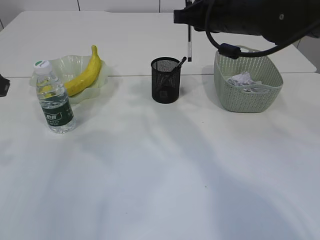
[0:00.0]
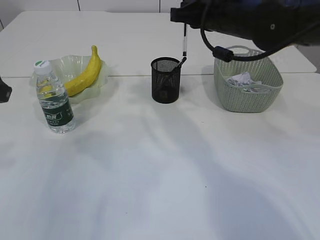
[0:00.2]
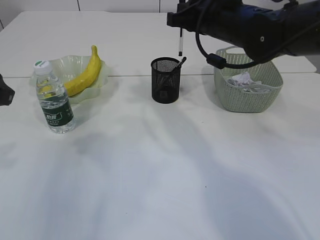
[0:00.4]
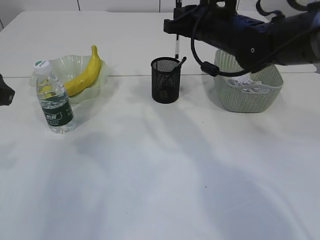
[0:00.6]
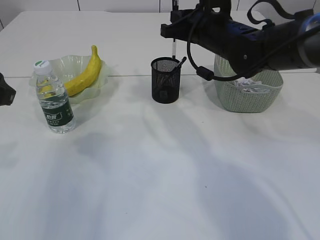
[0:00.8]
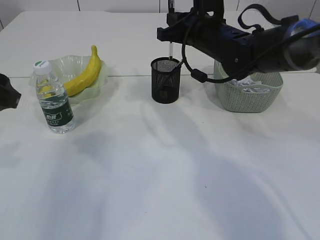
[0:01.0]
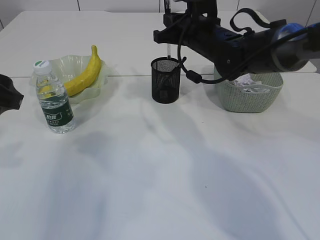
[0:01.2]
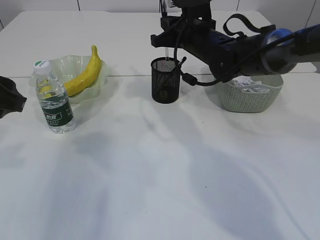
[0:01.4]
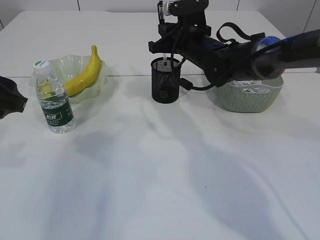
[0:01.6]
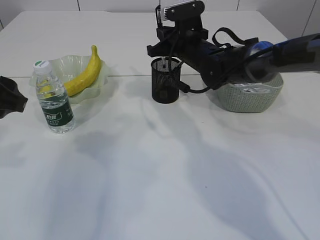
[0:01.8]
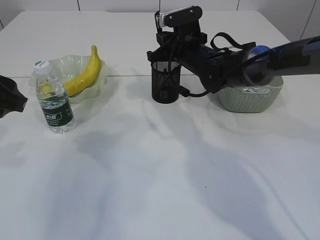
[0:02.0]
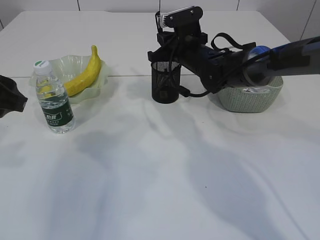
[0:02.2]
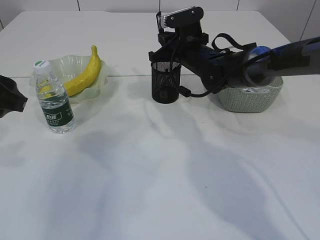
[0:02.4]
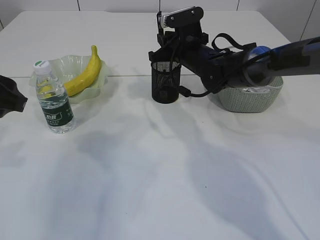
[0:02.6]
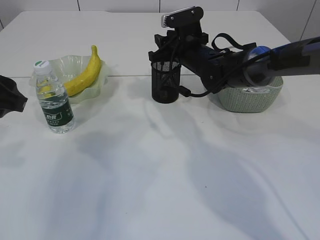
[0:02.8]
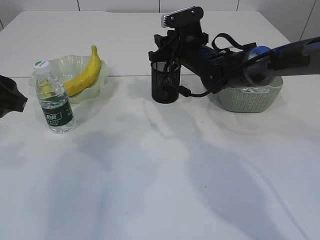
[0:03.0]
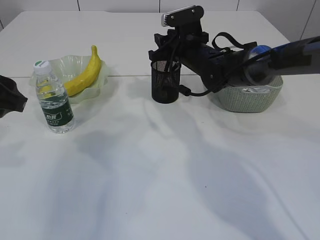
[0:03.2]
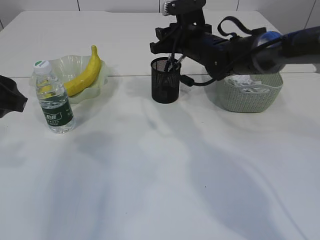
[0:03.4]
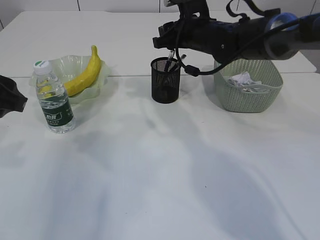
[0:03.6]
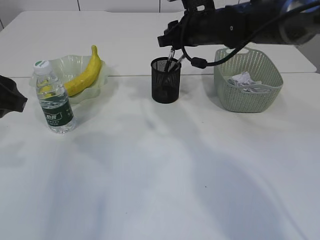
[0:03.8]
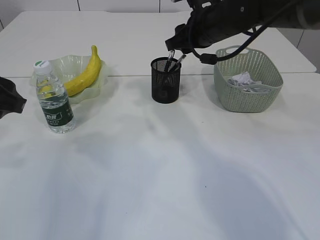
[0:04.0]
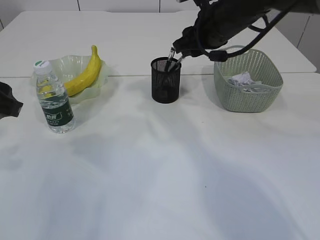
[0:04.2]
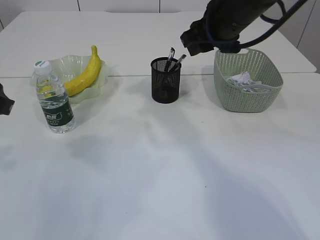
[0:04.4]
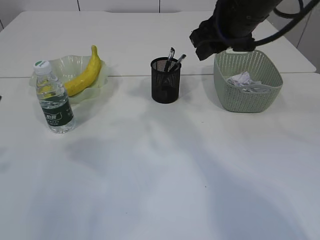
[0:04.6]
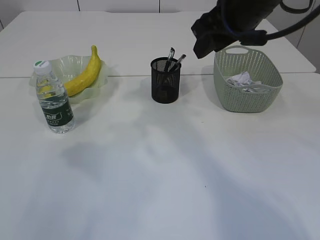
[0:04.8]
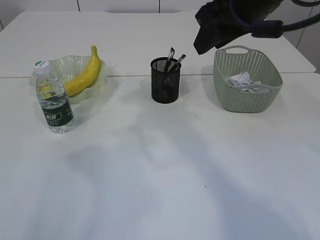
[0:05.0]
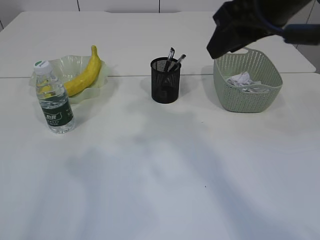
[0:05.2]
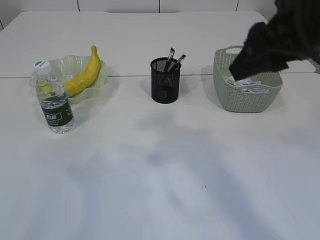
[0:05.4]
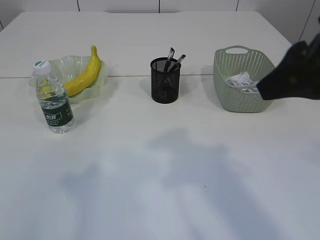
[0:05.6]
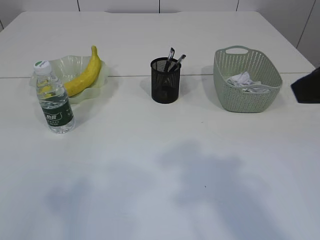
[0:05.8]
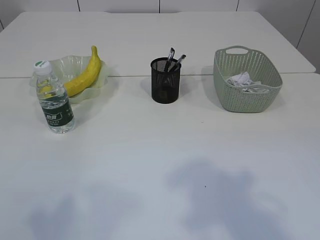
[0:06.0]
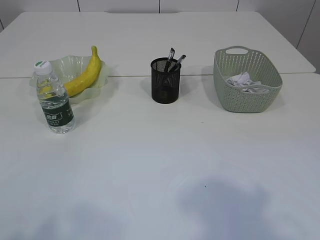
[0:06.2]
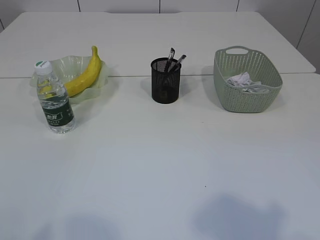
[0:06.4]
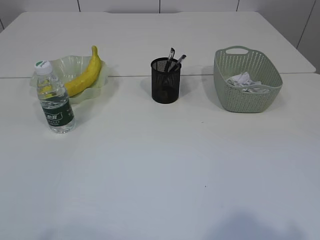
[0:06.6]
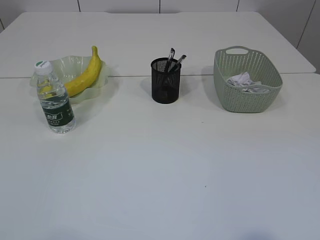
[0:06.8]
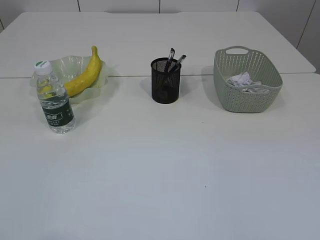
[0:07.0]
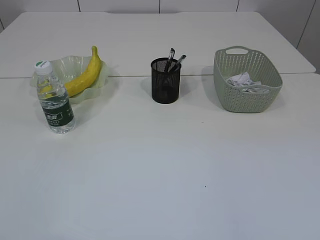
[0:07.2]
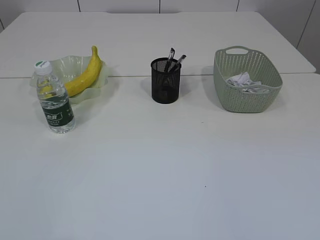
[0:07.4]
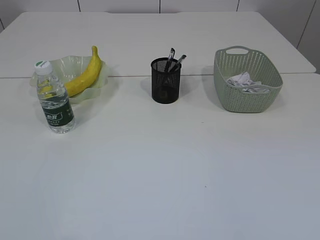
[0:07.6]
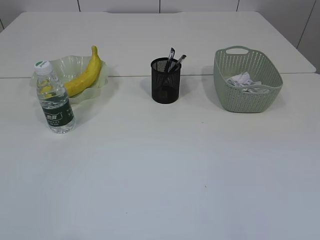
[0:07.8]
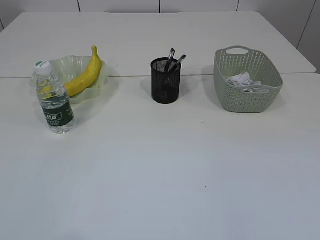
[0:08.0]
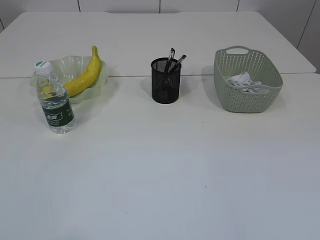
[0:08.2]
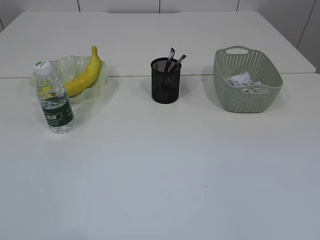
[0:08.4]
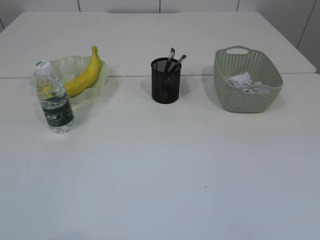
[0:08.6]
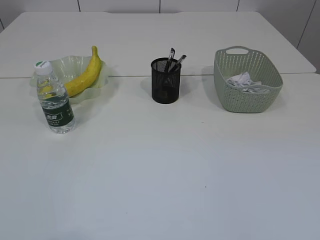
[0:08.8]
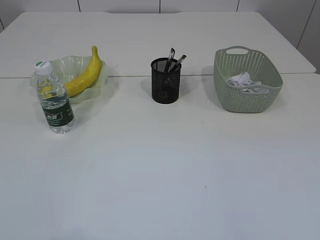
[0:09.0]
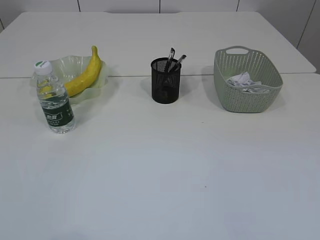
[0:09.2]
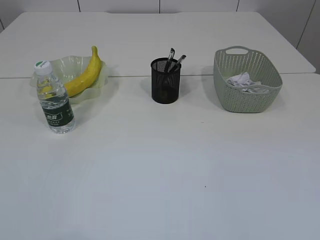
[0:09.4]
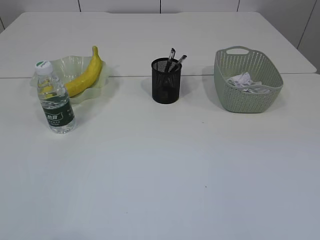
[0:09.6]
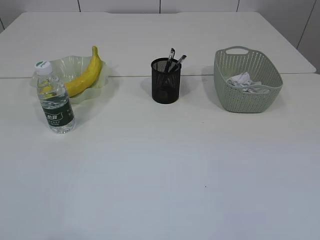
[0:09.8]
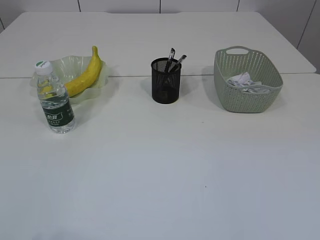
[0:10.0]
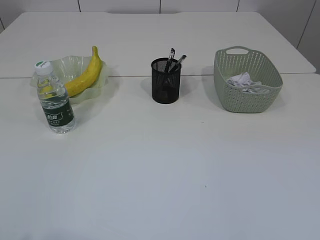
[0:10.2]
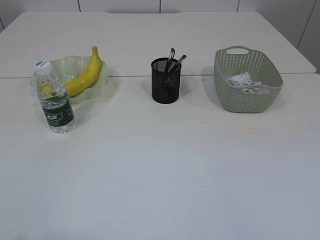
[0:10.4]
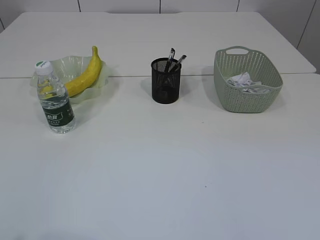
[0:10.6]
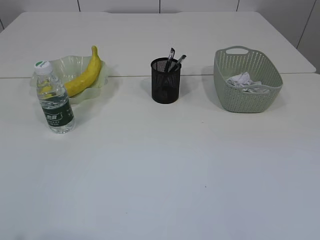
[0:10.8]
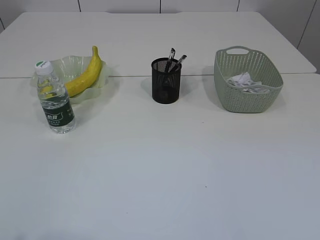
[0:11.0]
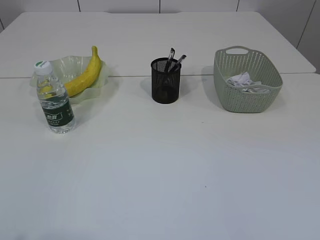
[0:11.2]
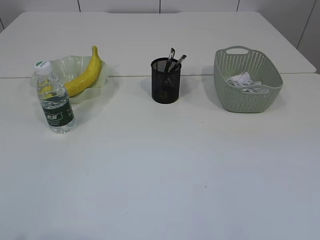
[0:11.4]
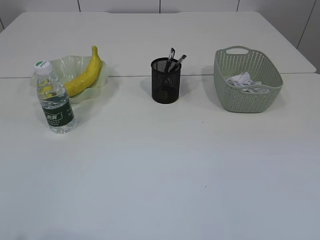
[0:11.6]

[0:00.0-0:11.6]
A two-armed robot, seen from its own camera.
Step, 0.0 to 3.6 s: Place the pen into the pen holder.
0.0 to 1.4 s: The right gripper travels downward and forward by roughly 10 cm.
1.4 to 2.8 s: The right gripper opens up.
2.8 to 4.4 s: The right gripper heads upward and backward, covering about 15 cm.
4.4 to 5.8 s: The right gripper shifts some 25 cm backward; the left gripper heads backward and upward, covering roughly 15 cm.
5.8 to 7.2 s: The right gripper moves backward, some 20 cm.

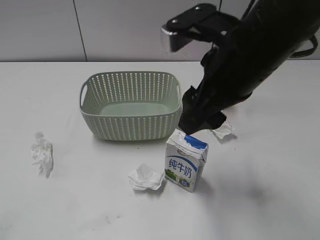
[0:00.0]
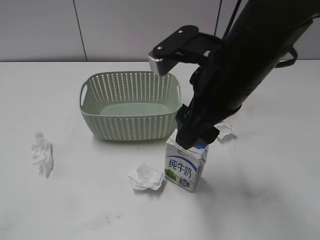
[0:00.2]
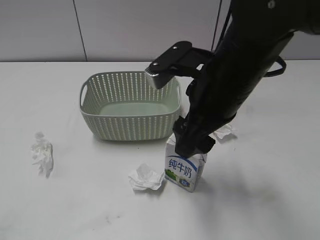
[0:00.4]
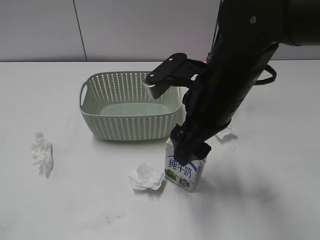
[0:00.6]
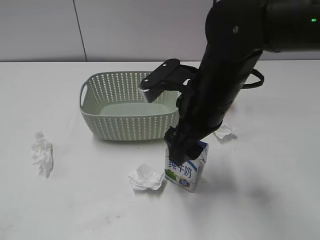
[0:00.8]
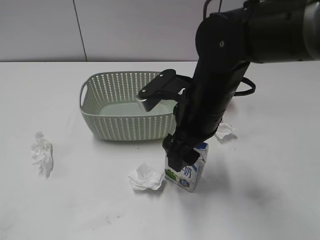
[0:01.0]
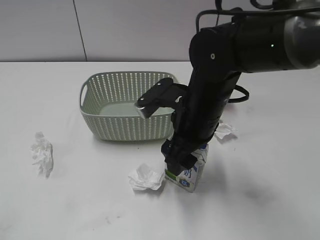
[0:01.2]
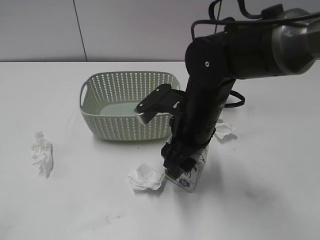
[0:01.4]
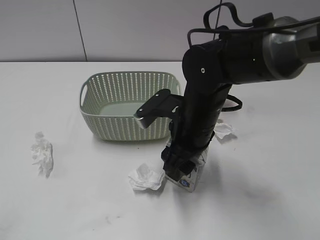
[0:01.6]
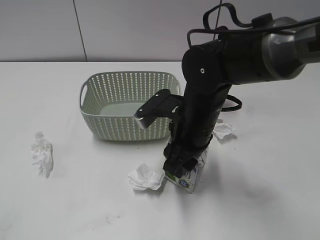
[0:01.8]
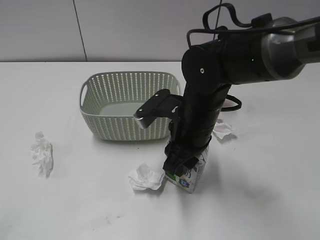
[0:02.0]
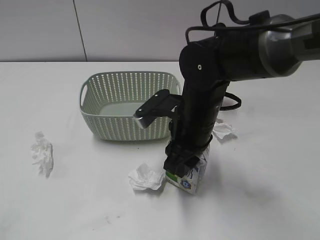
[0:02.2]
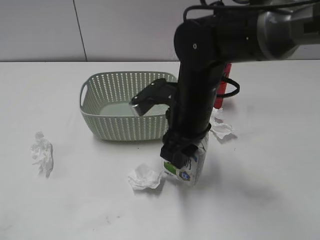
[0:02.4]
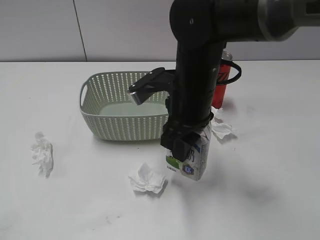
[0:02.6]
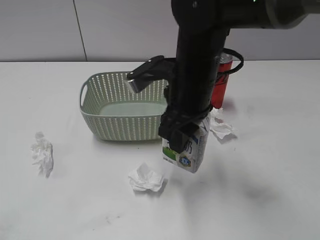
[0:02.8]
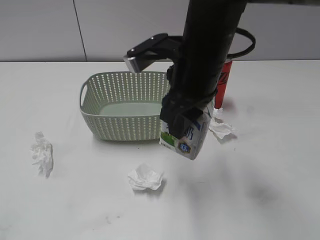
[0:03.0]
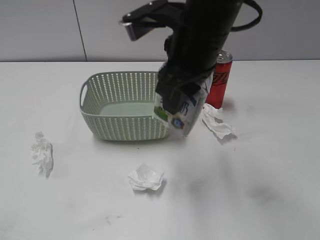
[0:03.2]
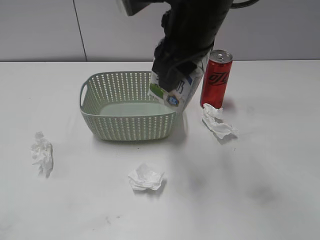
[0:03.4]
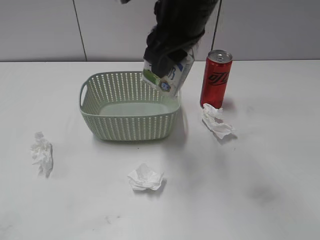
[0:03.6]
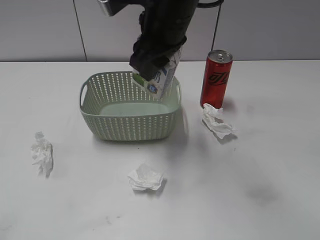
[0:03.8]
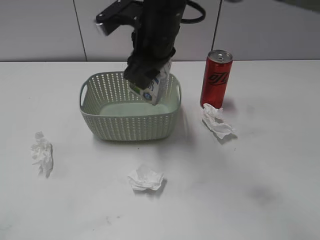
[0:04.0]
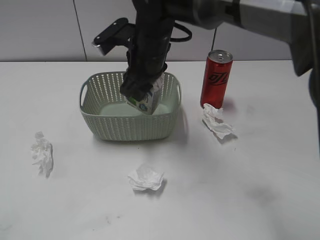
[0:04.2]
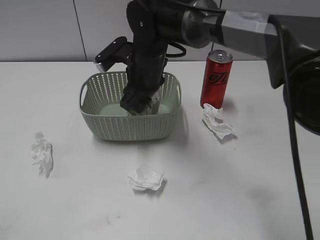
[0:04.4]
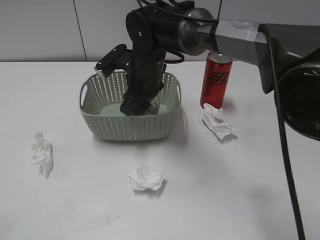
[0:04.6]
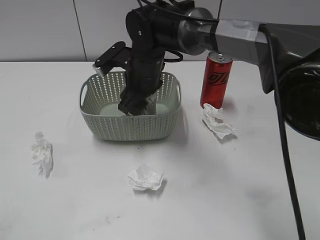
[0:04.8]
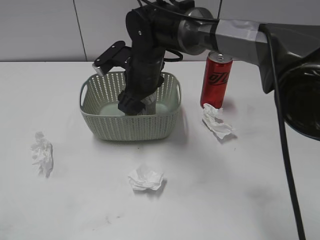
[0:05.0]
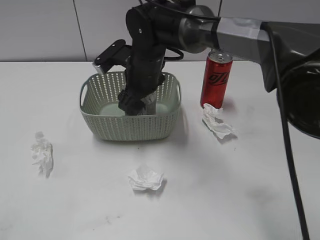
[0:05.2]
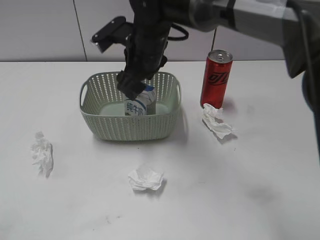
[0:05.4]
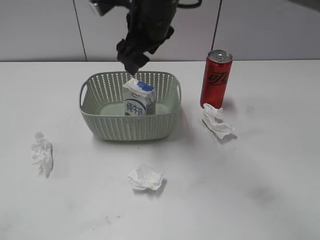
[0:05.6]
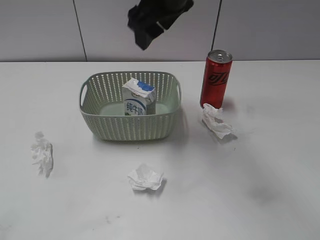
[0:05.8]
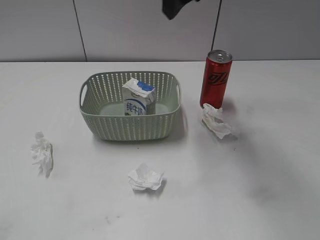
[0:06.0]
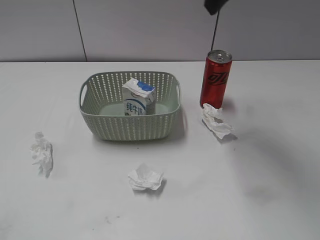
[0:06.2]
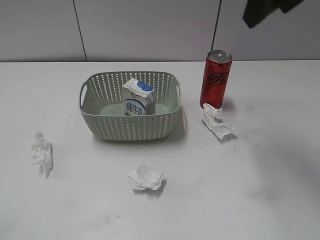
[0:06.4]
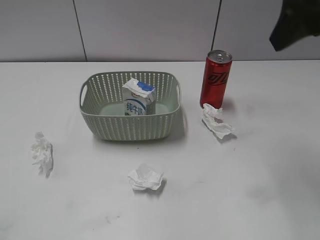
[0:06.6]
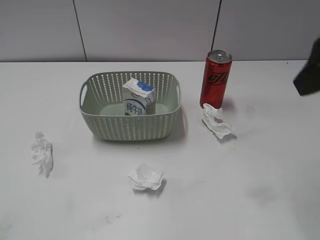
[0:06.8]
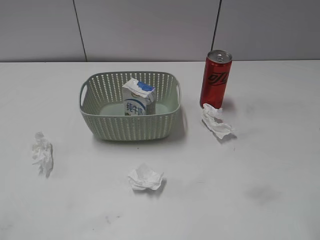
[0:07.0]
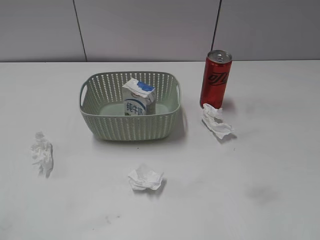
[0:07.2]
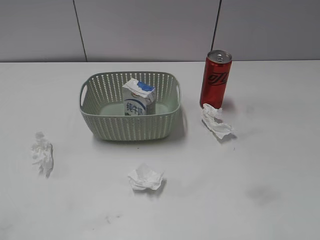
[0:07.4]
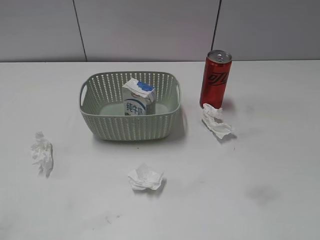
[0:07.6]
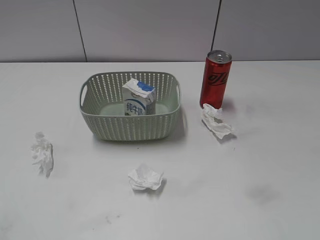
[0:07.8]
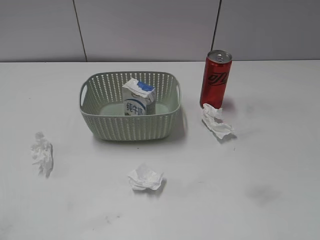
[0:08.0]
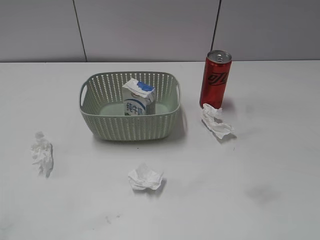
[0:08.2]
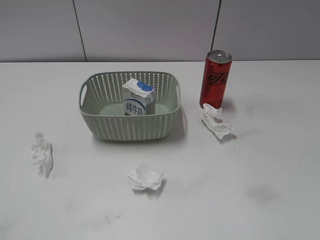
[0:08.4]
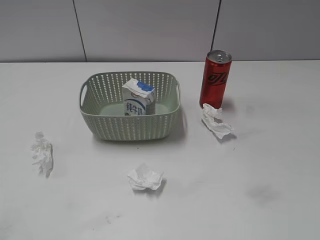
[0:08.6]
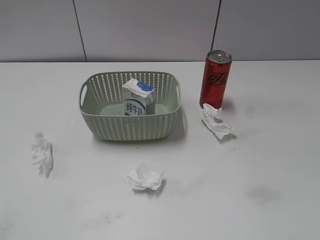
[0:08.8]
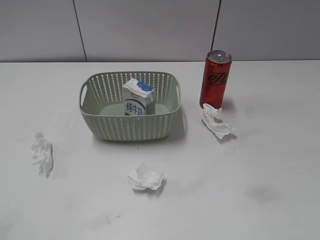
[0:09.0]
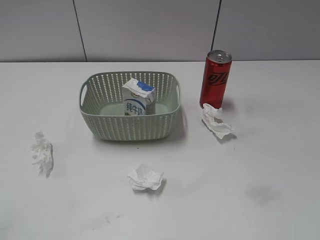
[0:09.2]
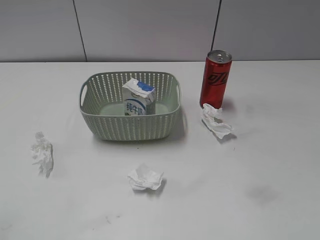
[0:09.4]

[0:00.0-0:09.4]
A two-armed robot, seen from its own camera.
Step, 0.0 to 1.8 s: Grasp the milk with right gripper.
Step, 2.0 to 5.6 s: Place the milk in the basket with right gripper.
0.0 to 1.6 s: The right gripper moves downward, some 15 cm.
1.6 to 3.2 s: The right gripper is displaced upward by roughly 15 cm.
3.2 to 4.8 s: The right gripper moves downward, forward and to the left, about 20 cm.
4.8 to 6.2 s: The right gripper travels upward and to the right by about 25 cm.
6.2 to 7.8 s: The right gripper is displaced backward, to the right and downward by roughly 35 cm.

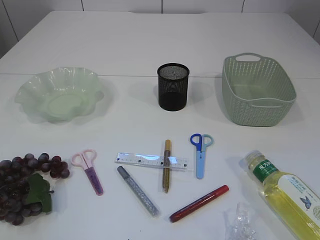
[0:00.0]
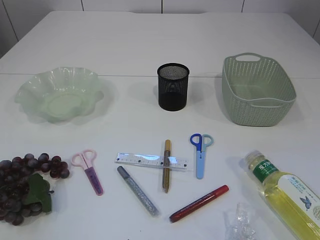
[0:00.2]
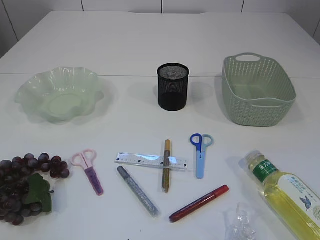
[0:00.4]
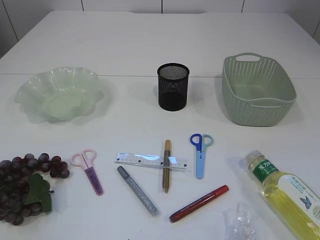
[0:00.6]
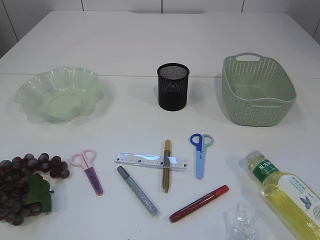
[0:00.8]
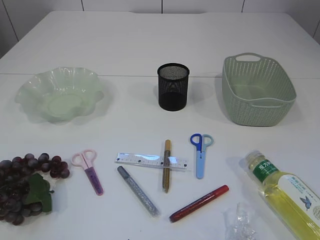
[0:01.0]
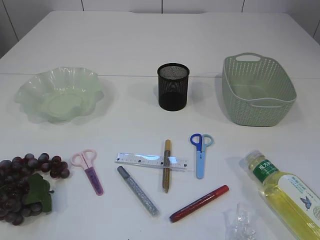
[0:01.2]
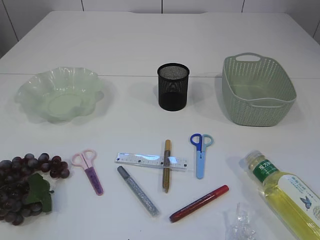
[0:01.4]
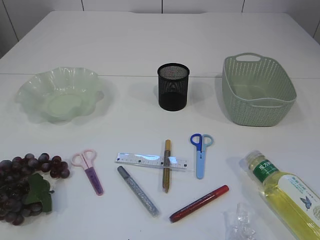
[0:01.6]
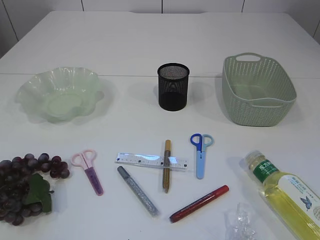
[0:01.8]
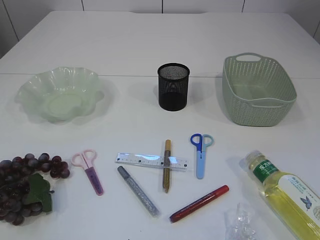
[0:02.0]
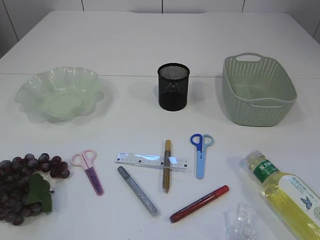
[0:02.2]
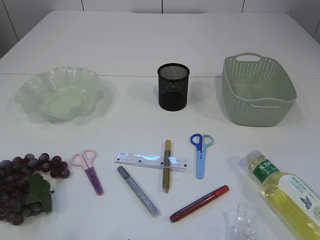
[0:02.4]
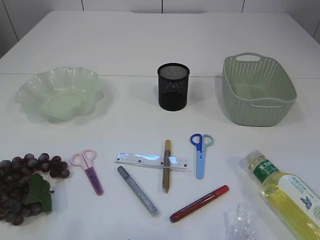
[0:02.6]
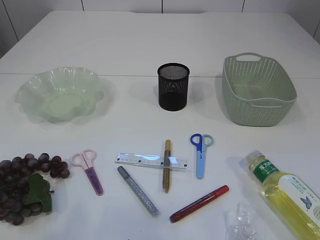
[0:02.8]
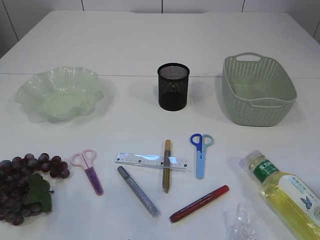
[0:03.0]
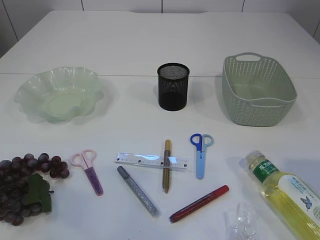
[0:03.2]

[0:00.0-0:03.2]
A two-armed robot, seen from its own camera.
1.6 to 3.2 s: The right gripper shifts approximately 15 cm forward and upward. The left gripper moves forward, some 15 cm.
